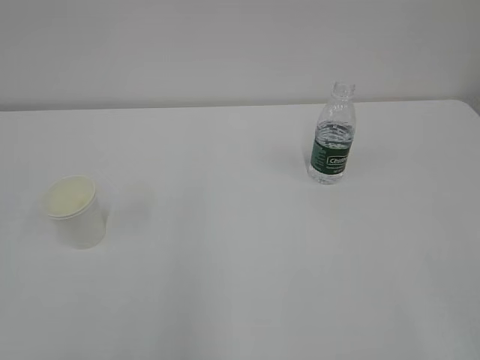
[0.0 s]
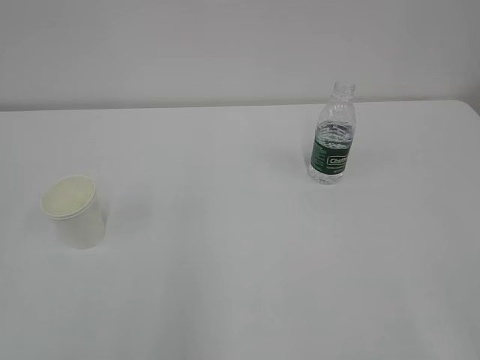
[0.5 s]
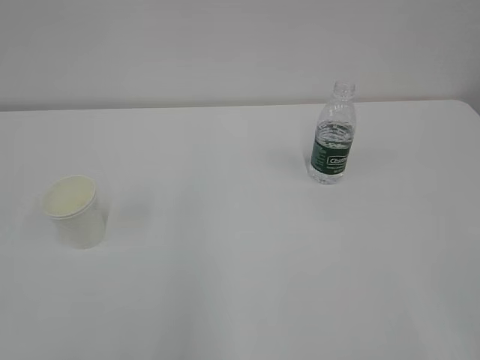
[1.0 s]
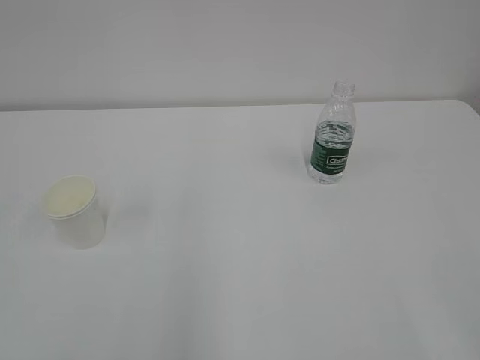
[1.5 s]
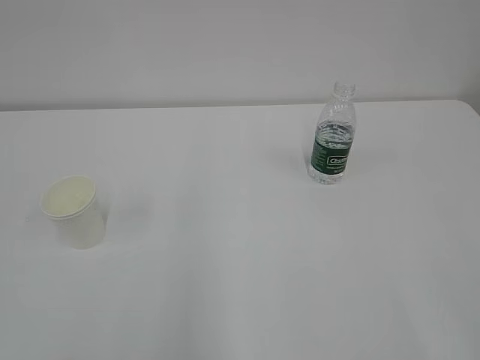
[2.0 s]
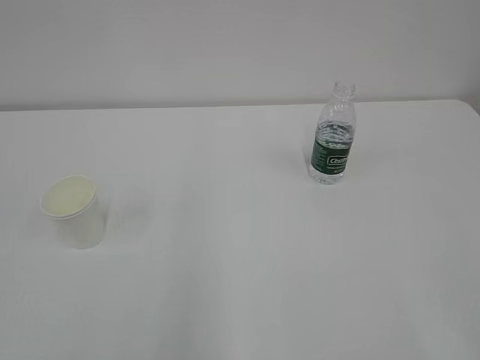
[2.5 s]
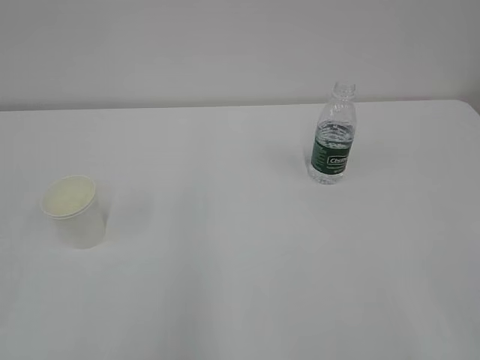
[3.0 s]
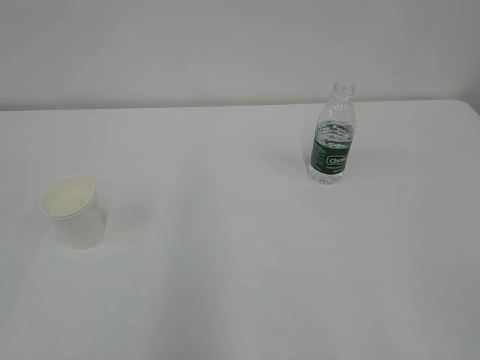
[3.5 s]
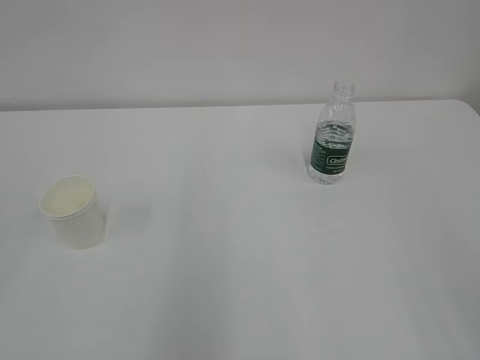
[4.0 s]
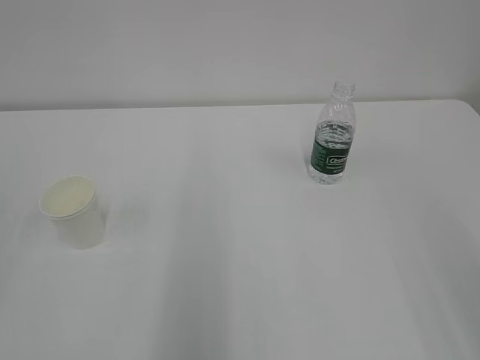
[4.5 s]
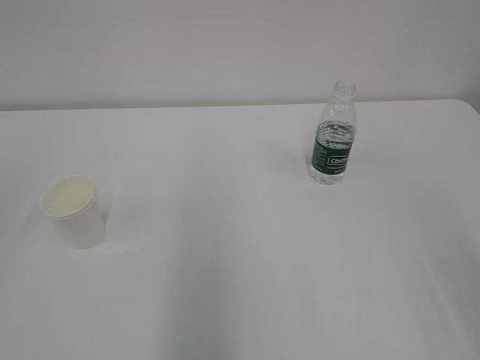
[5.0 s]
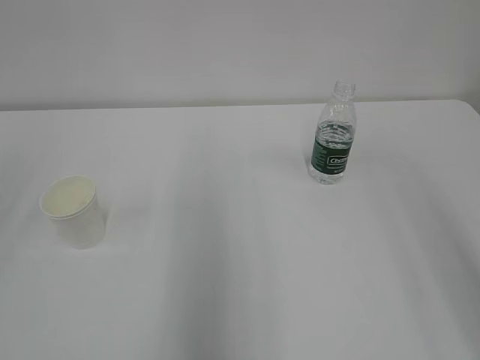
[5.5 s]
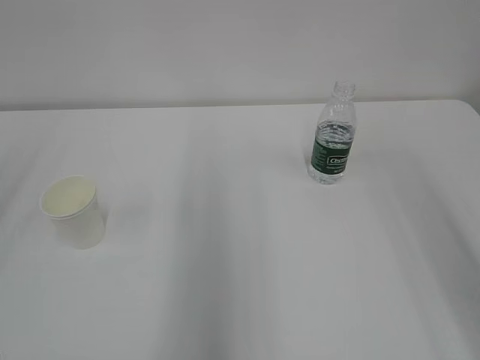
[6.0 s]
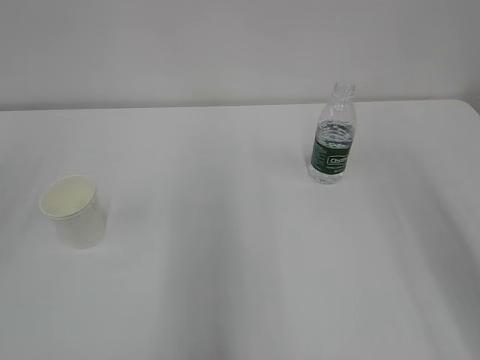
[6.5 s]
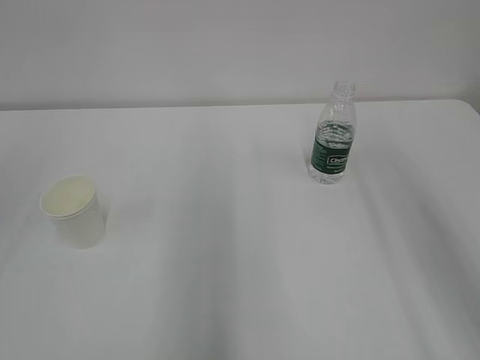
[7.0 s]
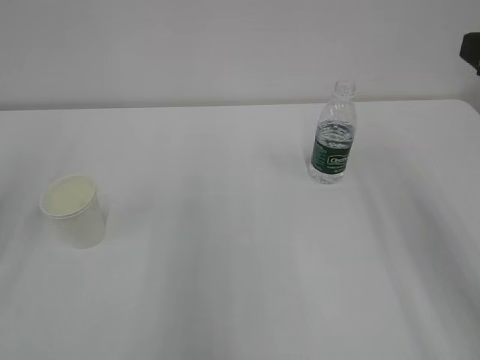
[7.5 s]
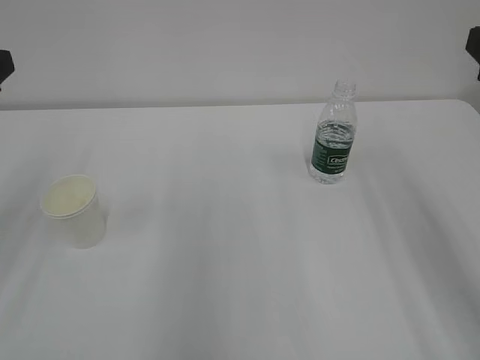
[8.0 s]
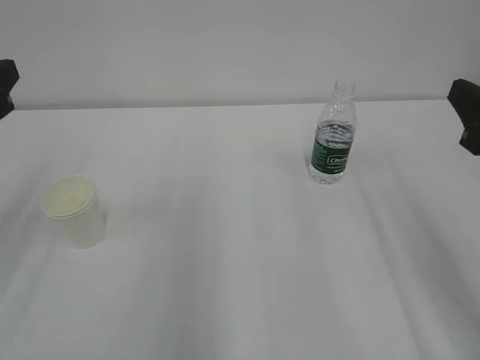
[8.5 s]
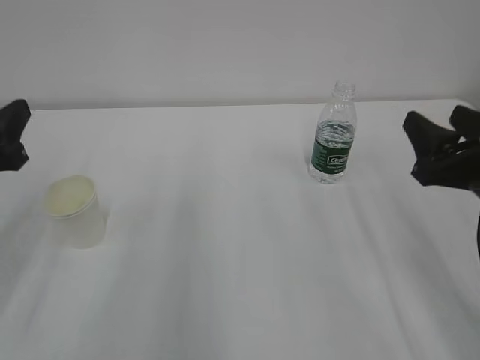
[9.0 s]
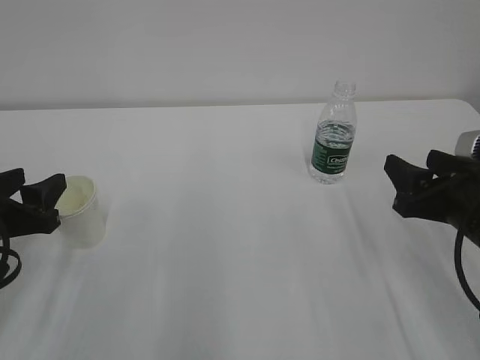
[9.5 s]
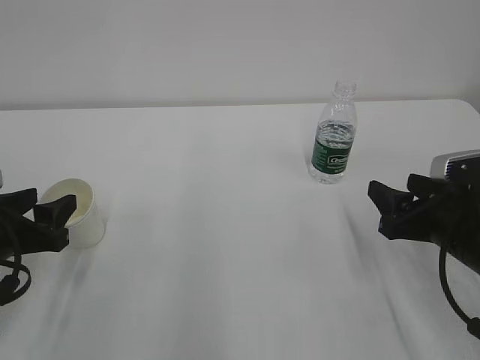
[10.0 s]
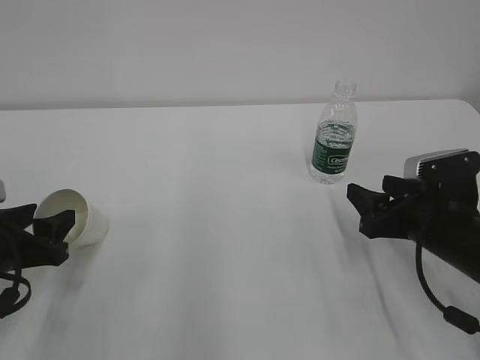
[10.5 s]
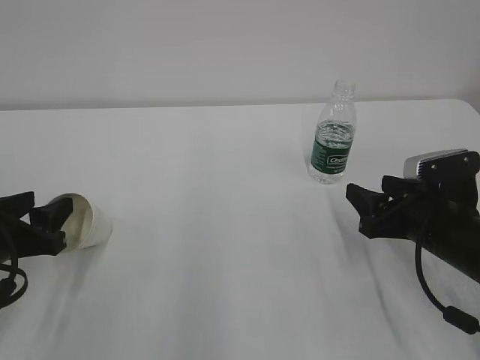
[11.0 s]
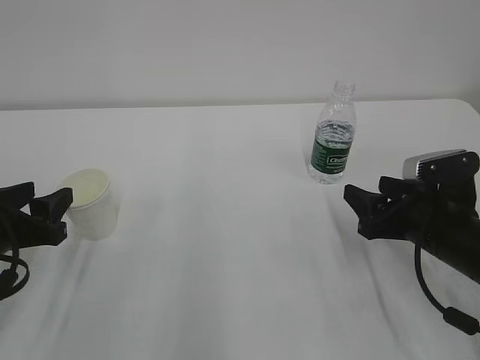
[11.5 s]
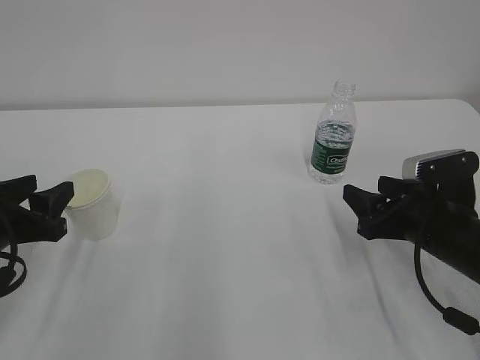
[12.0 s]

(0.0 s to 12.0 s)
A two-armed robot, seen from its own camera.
8.0 s - 10.0 s: The two grippers go some 20 cm downward.
10.0 s - 12.0 s: The grippers move only a little.

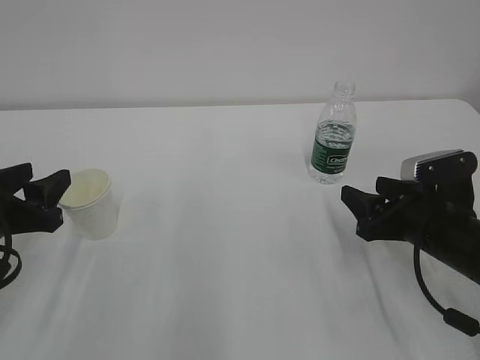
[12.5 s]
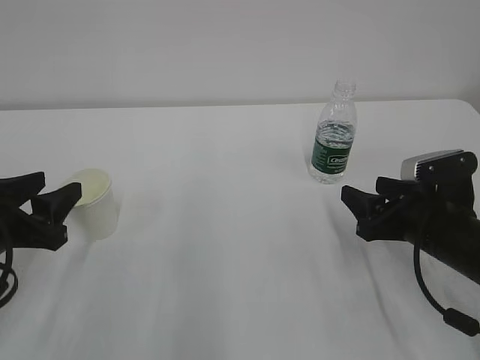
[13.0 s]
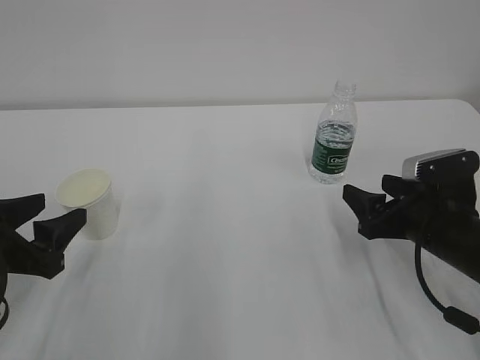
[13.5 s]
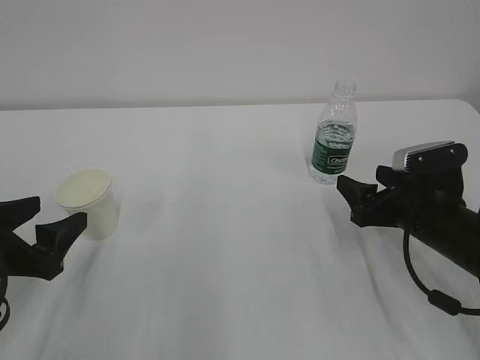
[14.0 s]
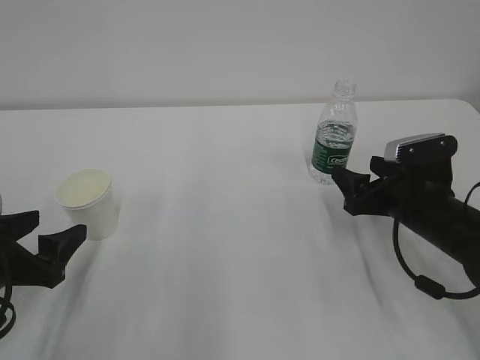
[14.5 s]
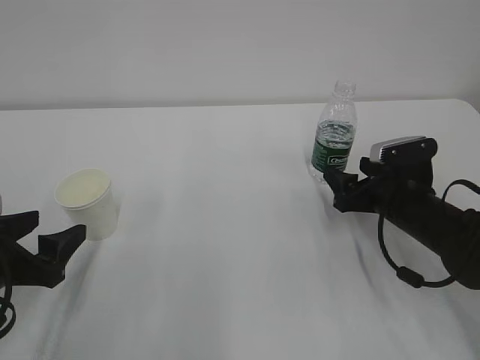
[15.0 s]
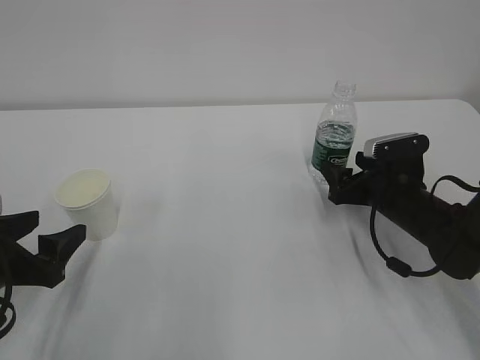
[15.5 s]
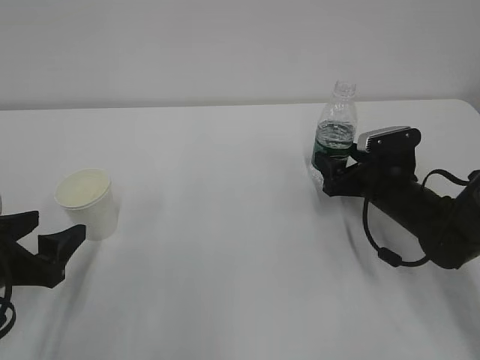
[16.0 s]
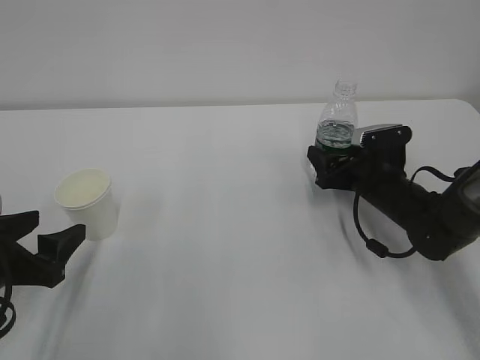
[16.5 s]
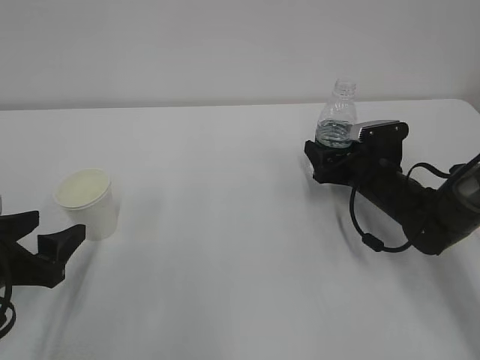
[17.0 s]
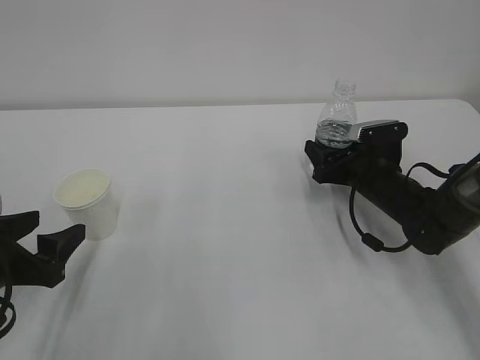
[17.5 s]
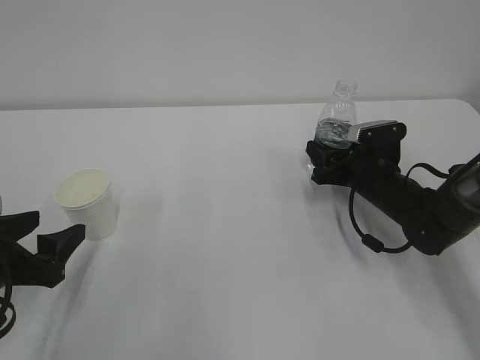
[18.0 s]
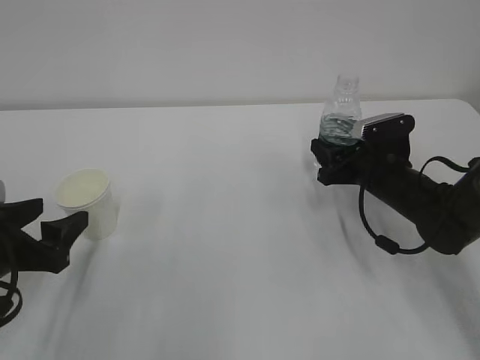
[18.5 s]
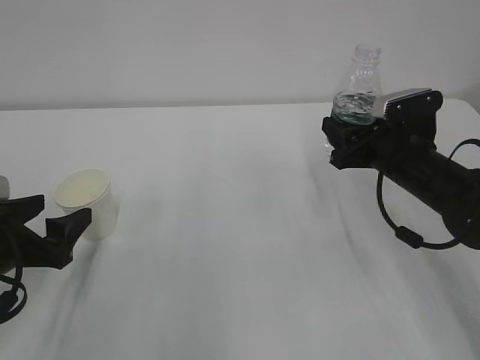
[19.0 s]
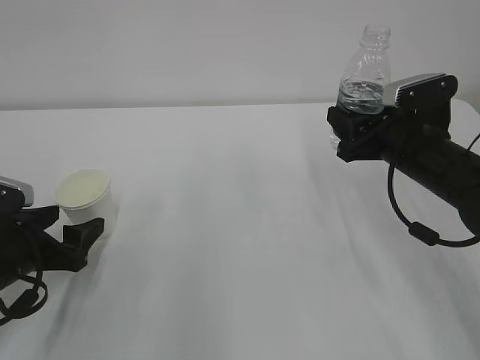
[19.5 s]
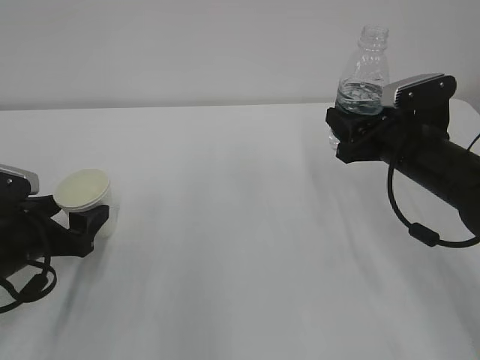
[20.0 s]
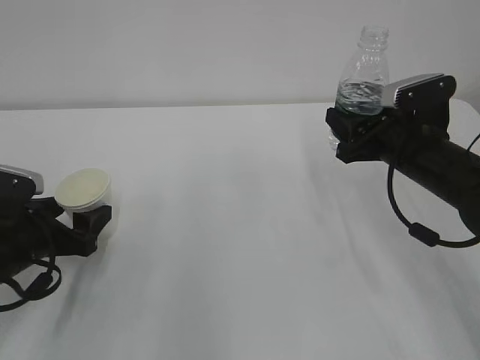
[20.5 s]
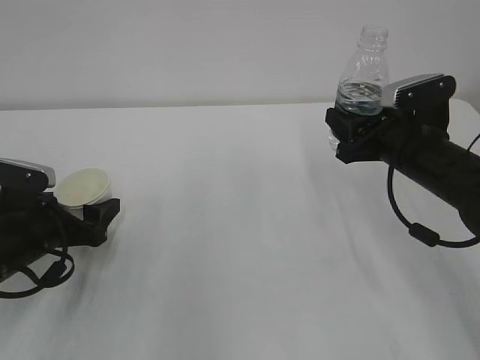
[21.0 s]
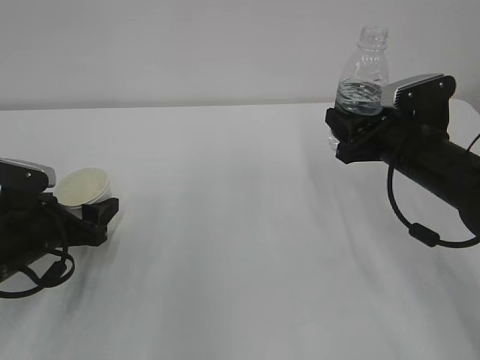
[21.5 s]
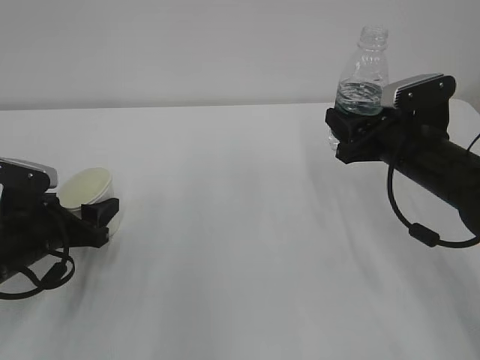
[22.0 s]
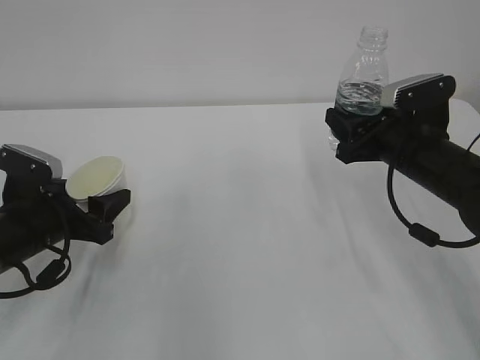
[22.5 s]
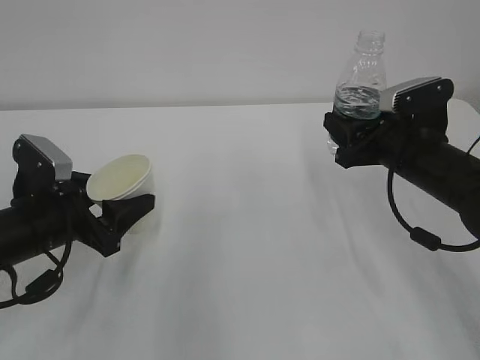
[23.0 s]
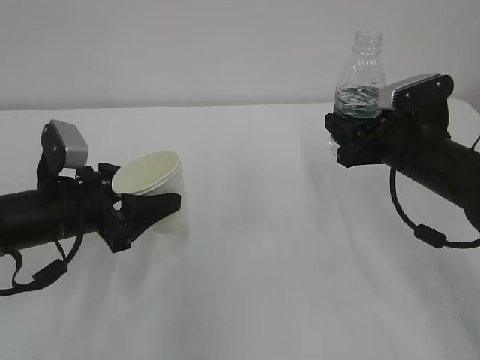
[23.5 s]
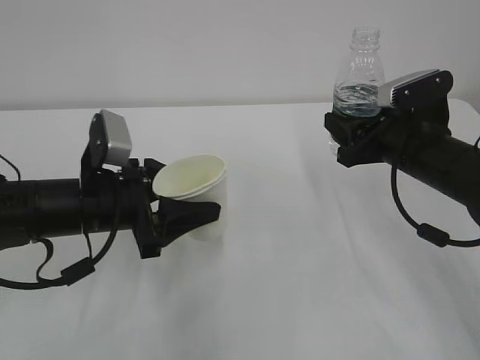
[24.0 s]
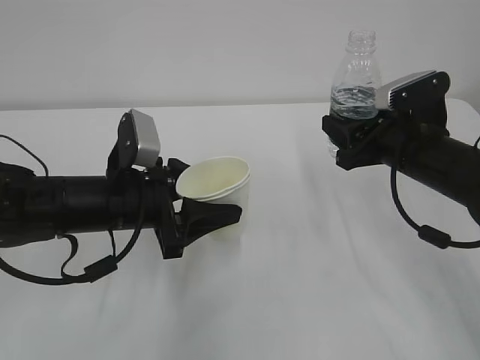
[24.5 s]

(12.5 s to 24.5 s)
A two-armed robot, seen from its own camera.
12.5 s - 14.5 s: The right gripper opens up; the left gripper opens its fingers.
14.5 s - 16.5 s: The right gripper goes roughly 10 cm forward.
16.5 s - 18.5 s: The right gripper closes its fingers.
18.5 s - 20.5 s: The right gripper travels upward by some 10 cm. The left gripper moves about 5 cm.
20.5 s - 22.5 s: The left gripper closes its fingers.
22.5 s - 24.5 s: The left gripper heads to the right, covering roughly 10 cm.

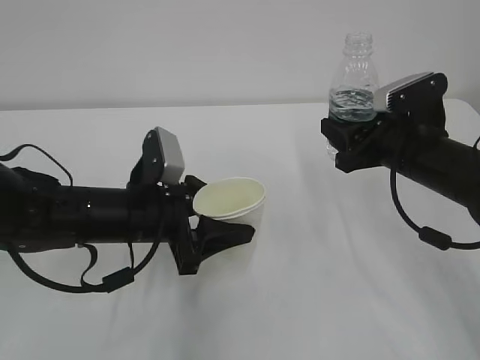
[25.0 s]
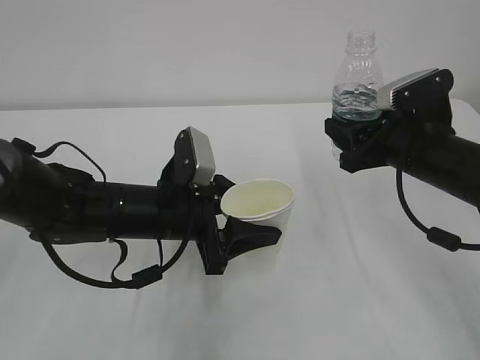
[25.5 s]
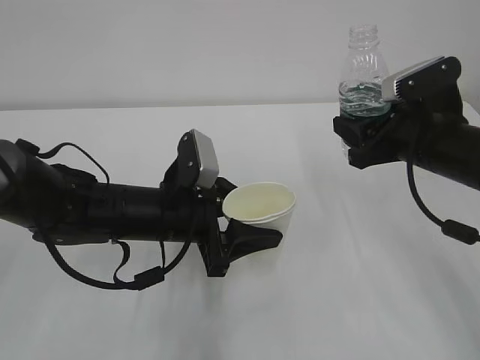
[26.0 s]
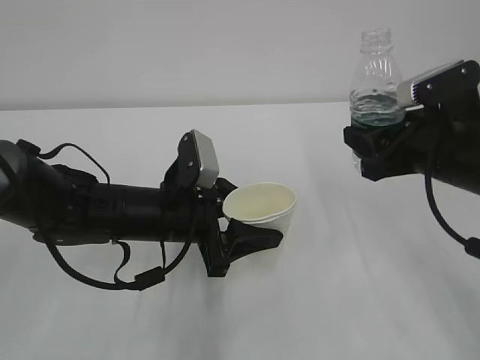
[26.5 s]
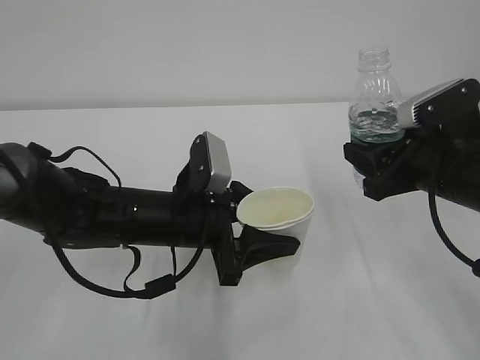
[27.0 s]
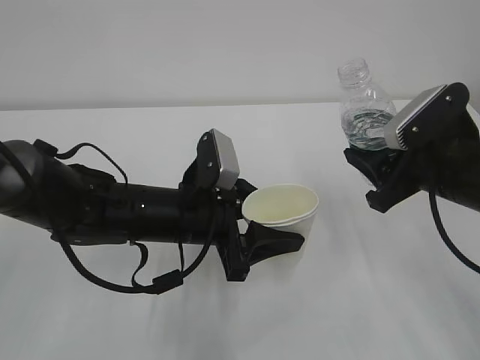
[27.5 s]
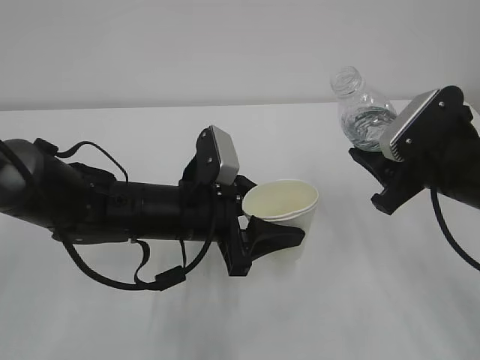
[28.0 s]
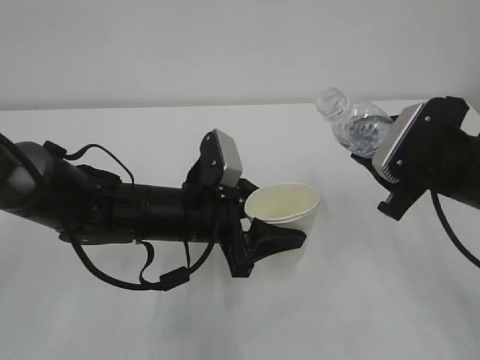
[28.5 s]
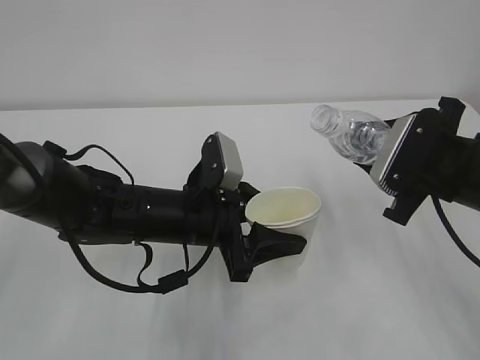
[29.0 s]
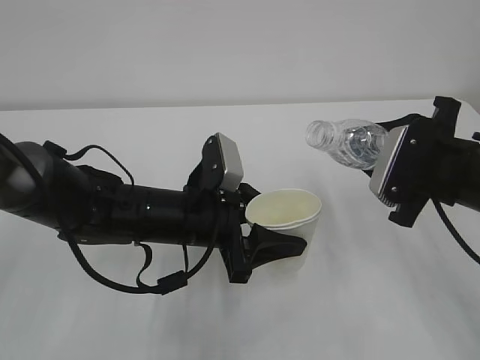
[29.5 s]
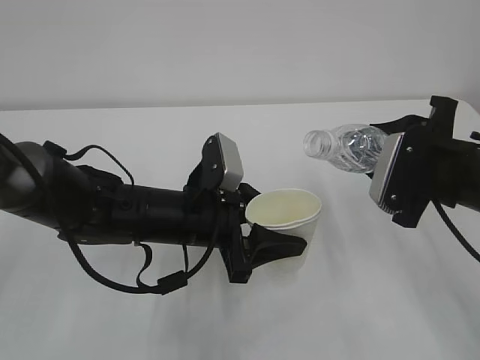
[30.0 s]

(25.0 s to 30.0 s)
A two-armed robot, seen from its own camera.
25.0 s - 27.5 s: The right gripper goes some 5 cm backward. Meanwhile the left gripper shifts about 5 cm to the right.
